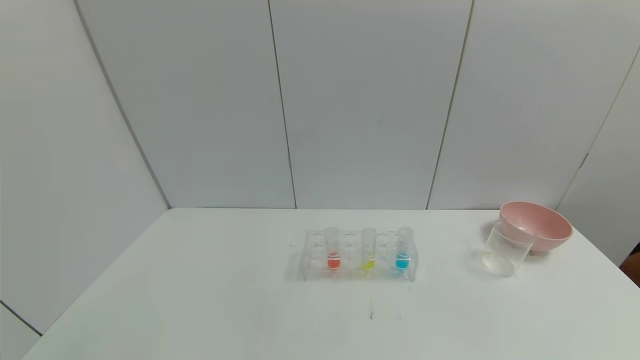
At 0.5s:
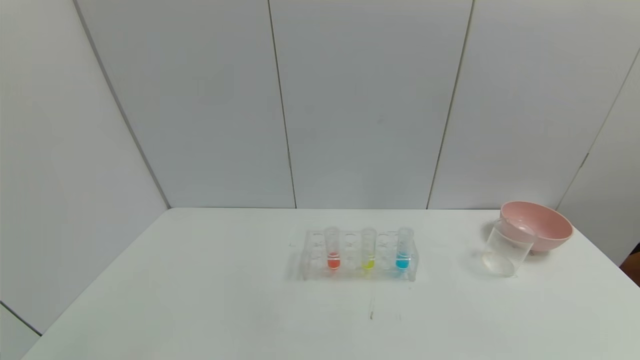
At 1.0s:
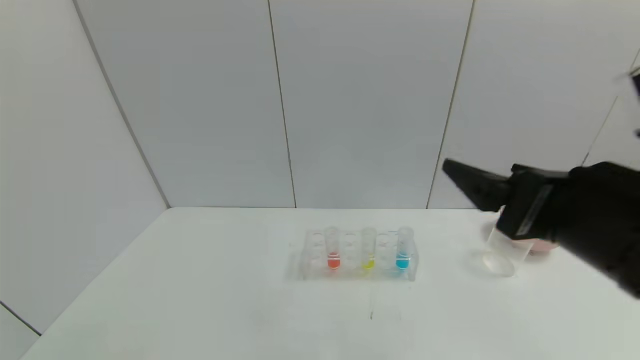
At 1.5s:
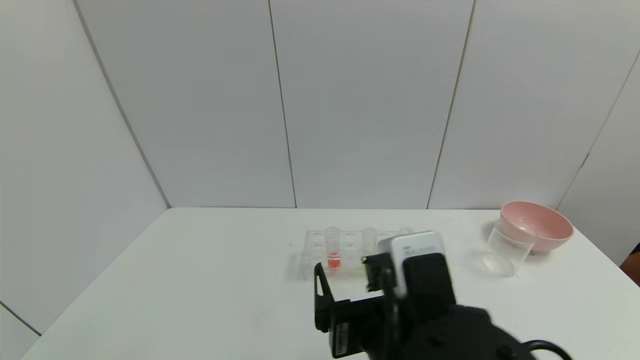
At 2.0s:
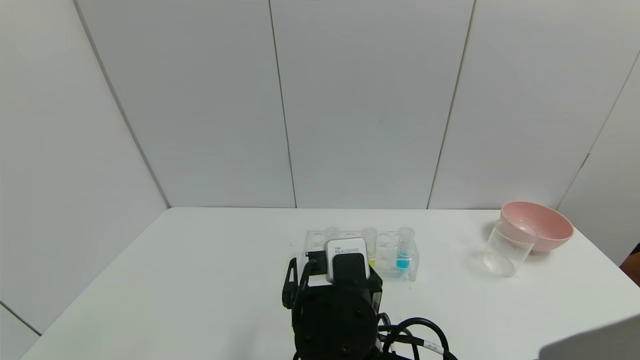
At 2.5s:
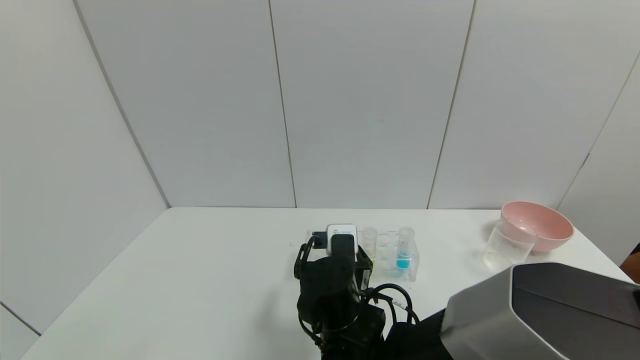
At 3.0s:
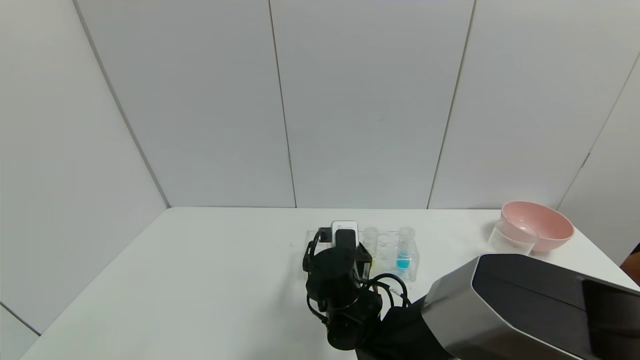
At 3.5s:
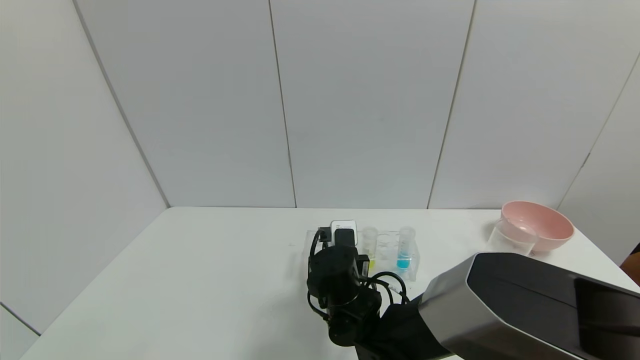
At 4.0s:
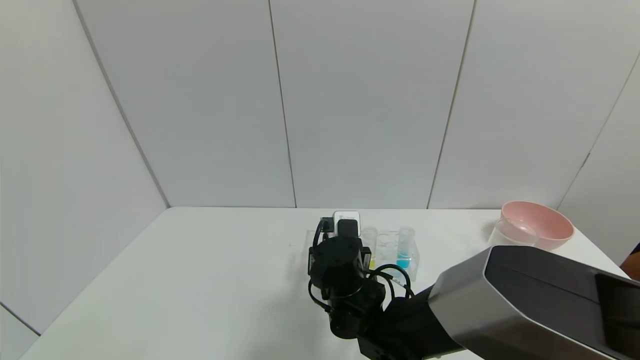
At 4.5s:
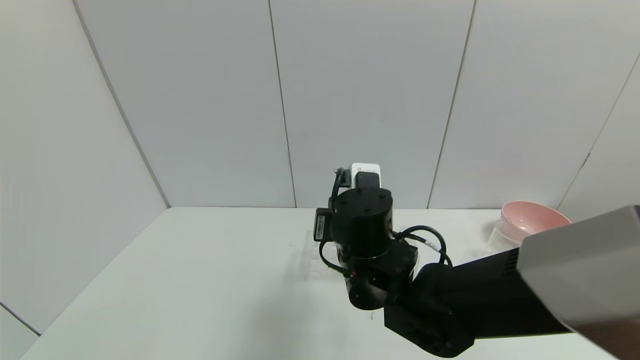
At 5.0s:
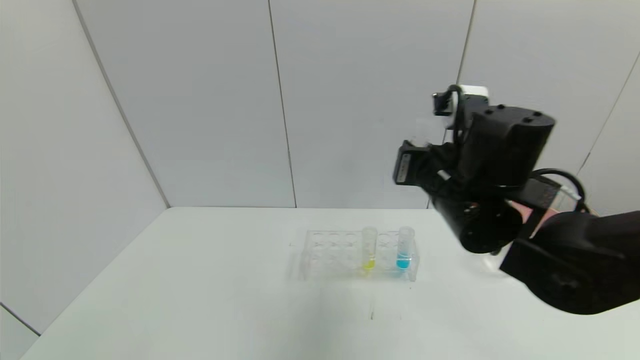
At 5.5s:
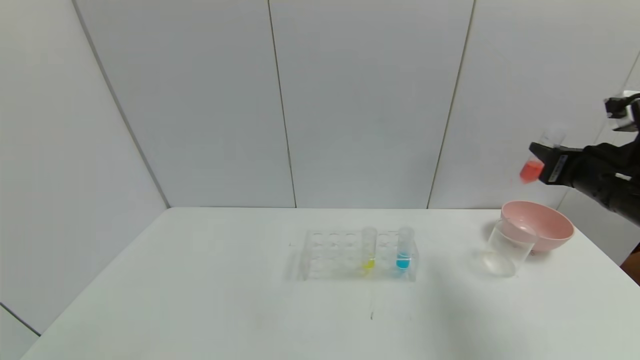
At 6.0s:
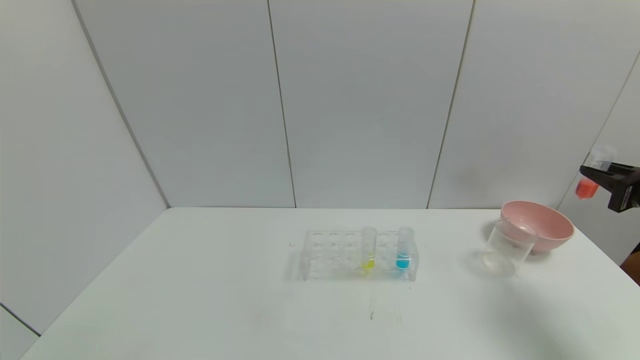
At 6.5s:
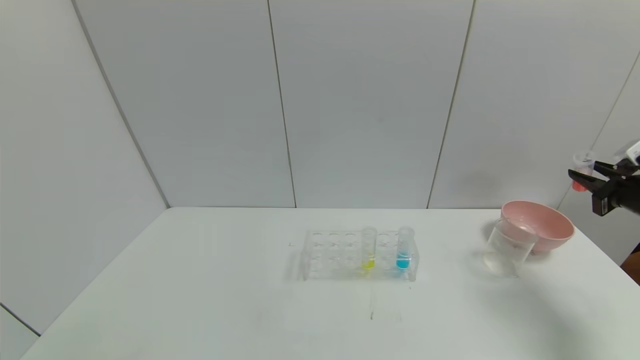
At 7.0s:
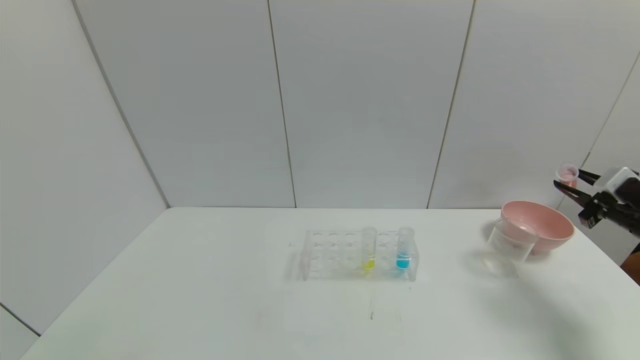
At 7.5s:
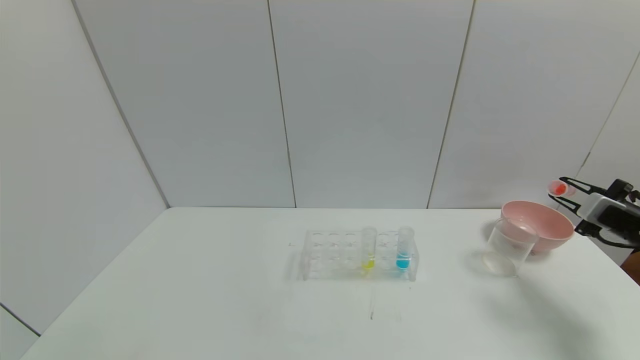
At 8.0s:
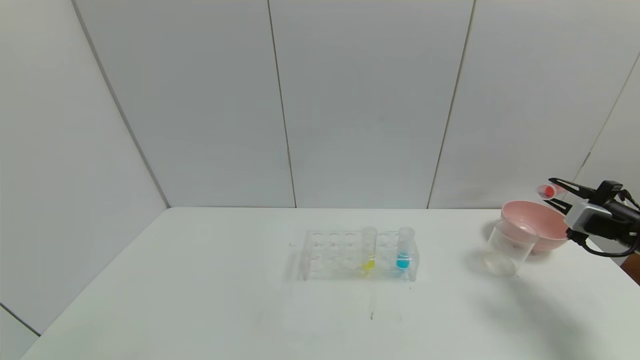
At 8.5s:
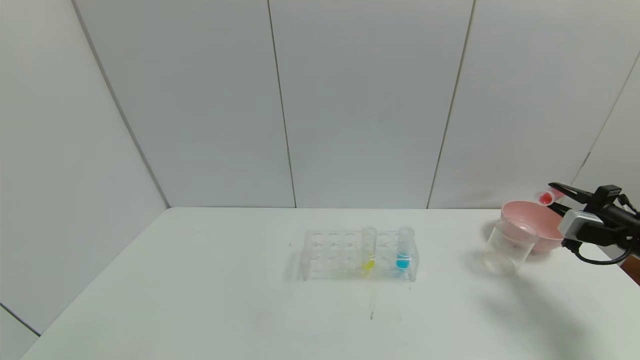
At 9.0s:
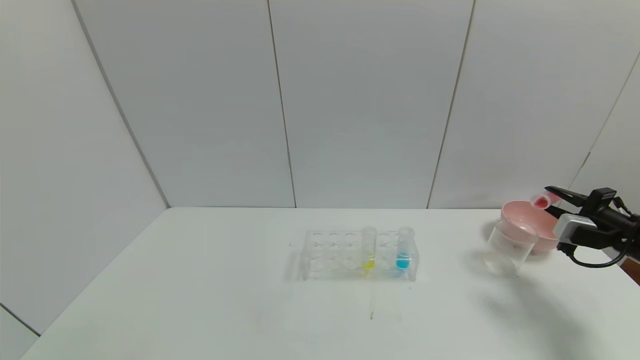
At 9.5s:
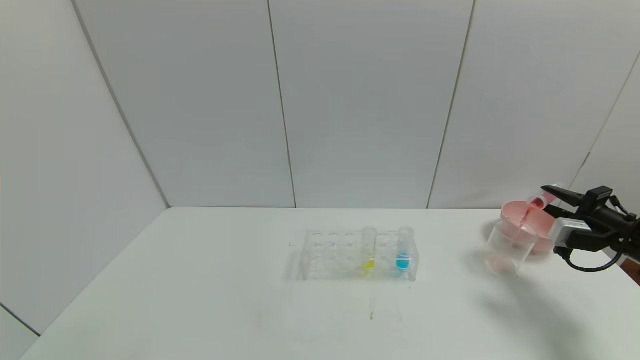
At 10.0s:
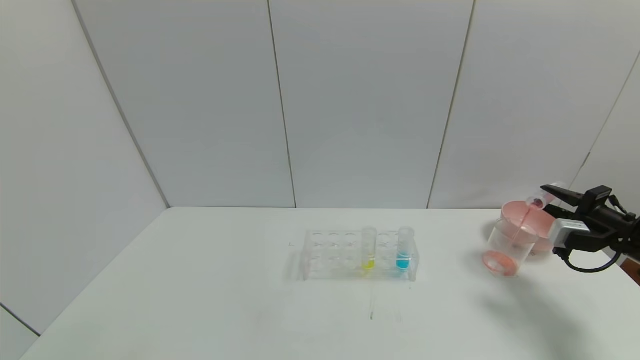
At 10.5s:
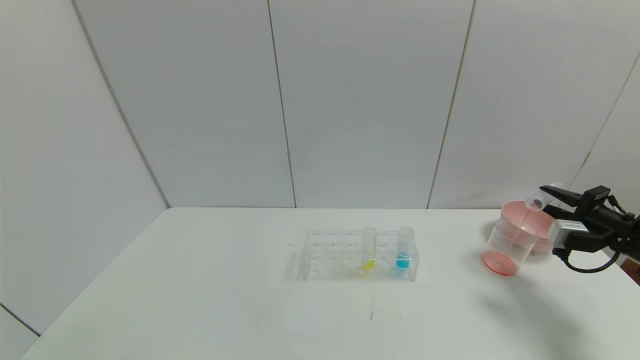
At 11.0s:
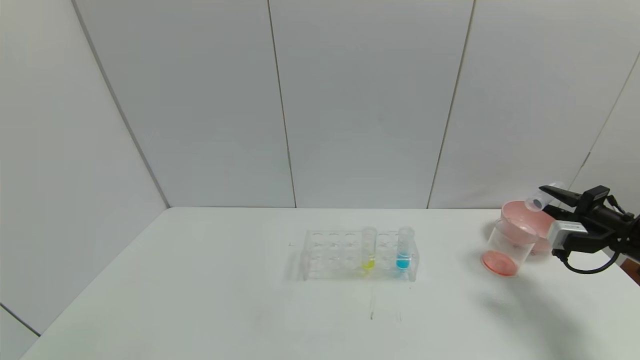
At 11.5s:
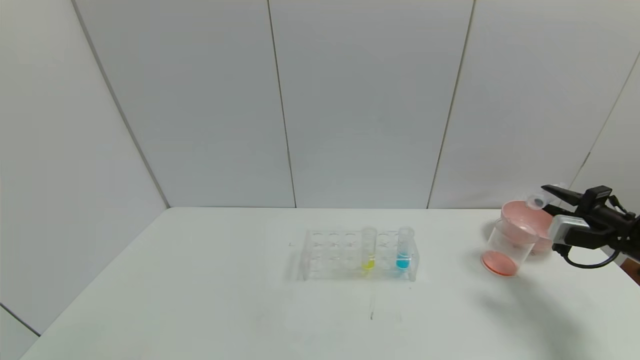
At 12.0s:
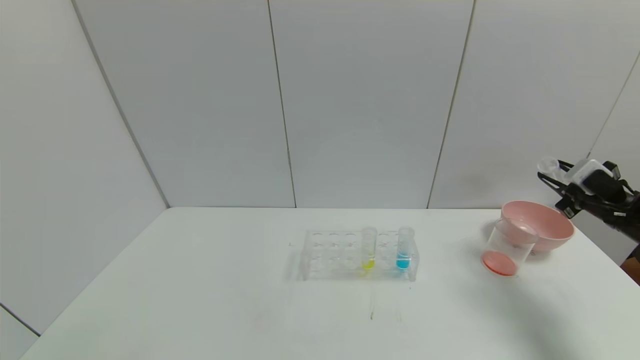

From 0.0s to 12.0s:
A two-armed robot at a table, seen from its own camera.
Task of the whole recording: pick up the test tube with yellow pigment and the test tube with red pigment by grippers and pour them into the beaker.
Step, from 0.0s to 5.0s: Pick up the test tube containing the red reagent with right gripper.
From 0.0s to 2.0s: The right gripper moves to the left and forward, approximately 40 cm.
From 2.0s to 4.0s: The right gripper shifts roughly 10 cm forward, and closes.
From 4.0s to 6.0s: The right gripper is displaced to the right by approximately 50 cm.
From 6.0s to 8.0s: The right gripper shifts approximately 5 cm downward.
From 8.0s to 10.0s: The grippers move only a little.

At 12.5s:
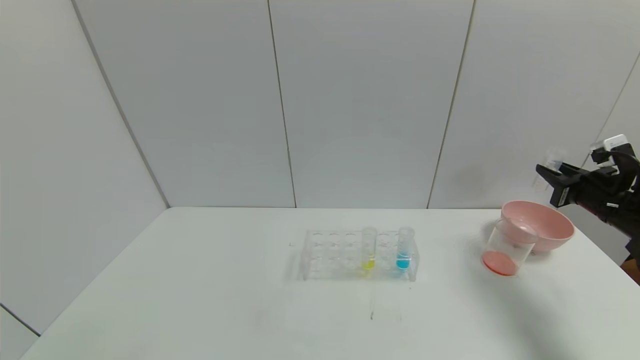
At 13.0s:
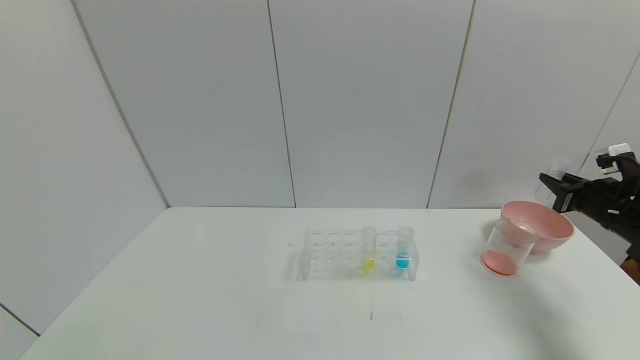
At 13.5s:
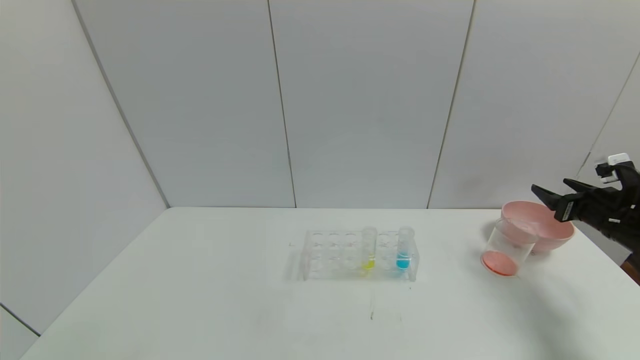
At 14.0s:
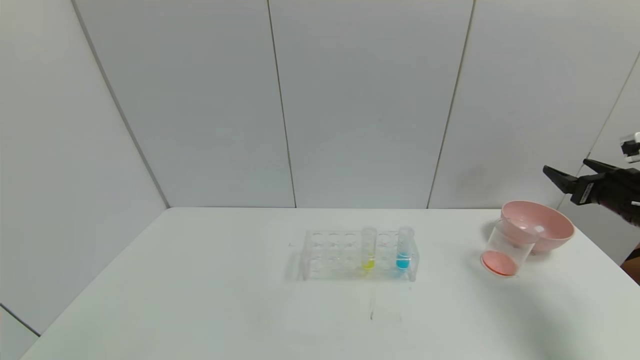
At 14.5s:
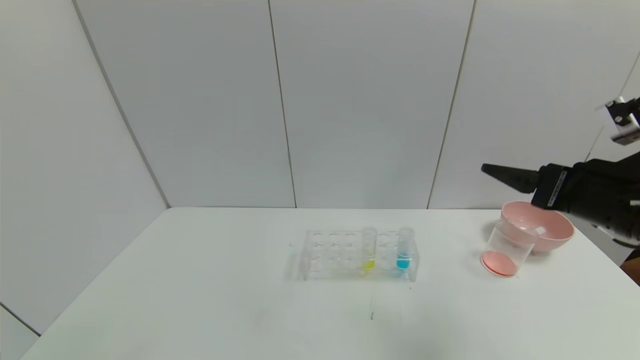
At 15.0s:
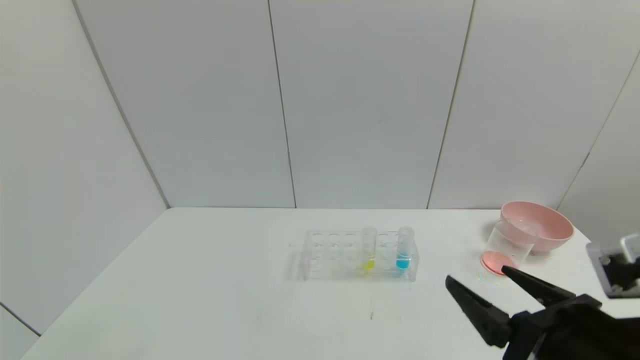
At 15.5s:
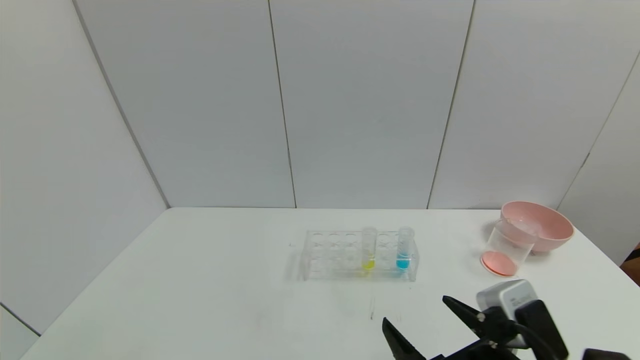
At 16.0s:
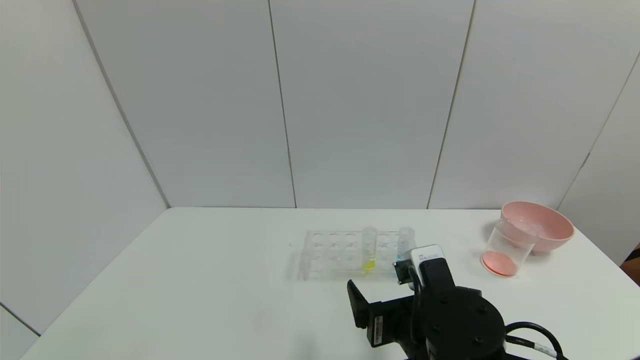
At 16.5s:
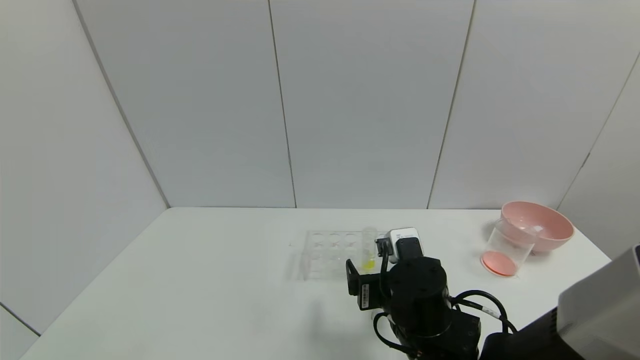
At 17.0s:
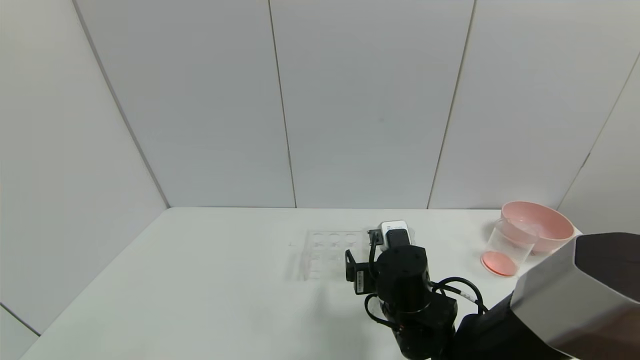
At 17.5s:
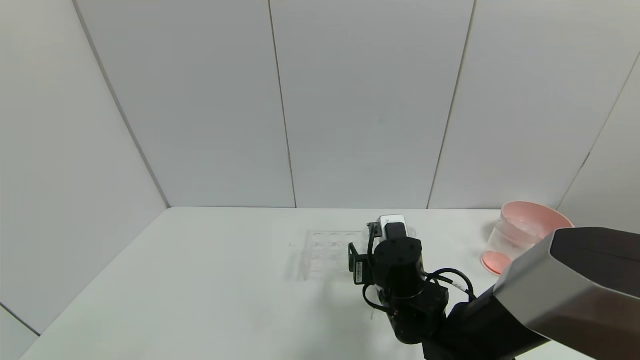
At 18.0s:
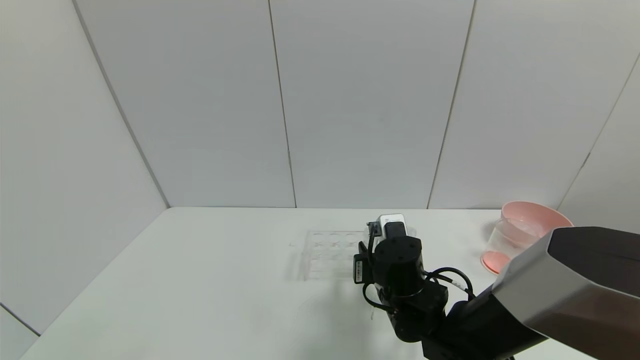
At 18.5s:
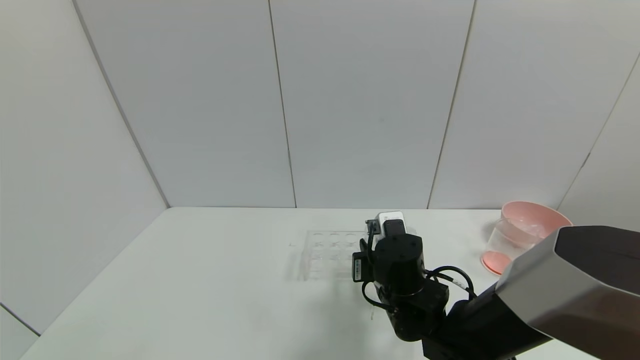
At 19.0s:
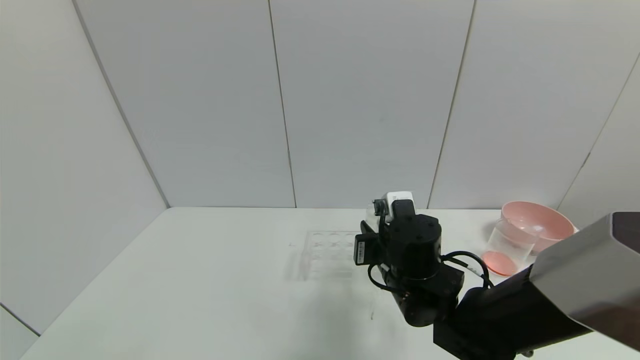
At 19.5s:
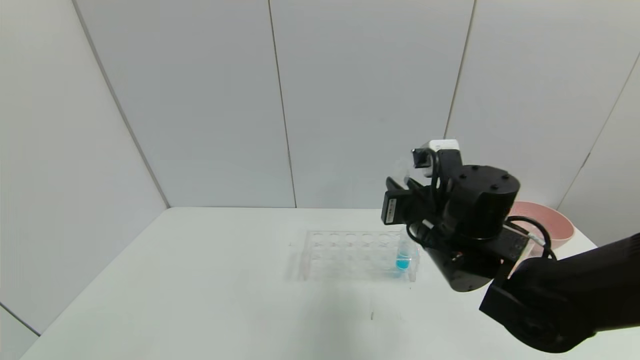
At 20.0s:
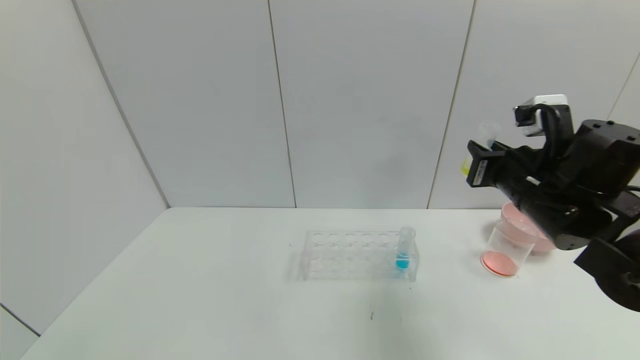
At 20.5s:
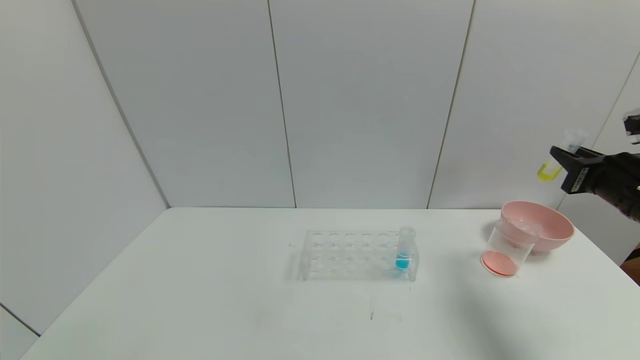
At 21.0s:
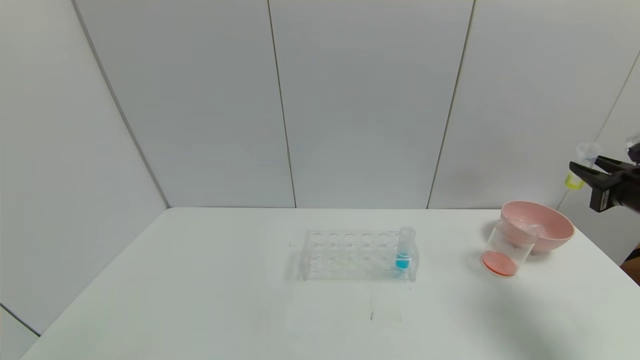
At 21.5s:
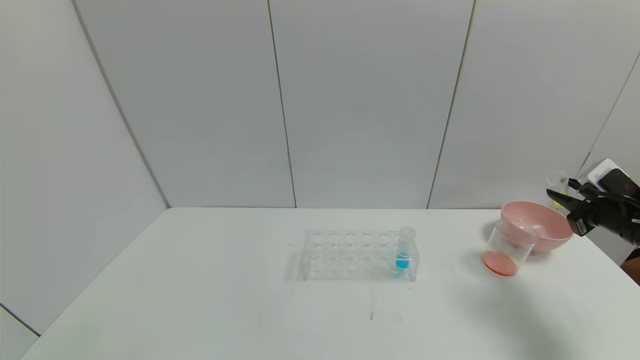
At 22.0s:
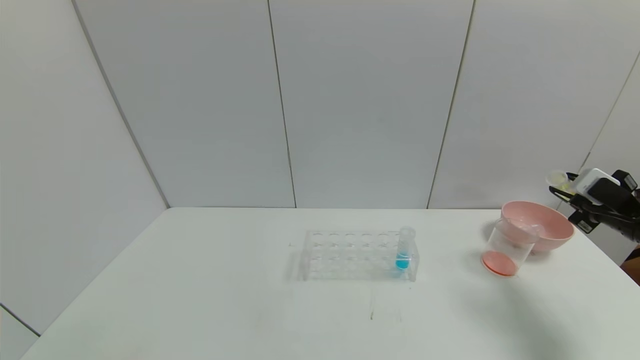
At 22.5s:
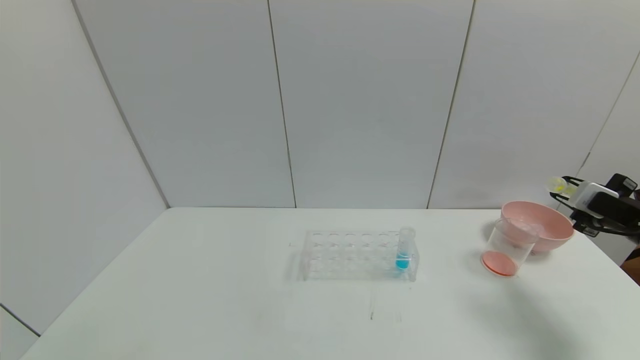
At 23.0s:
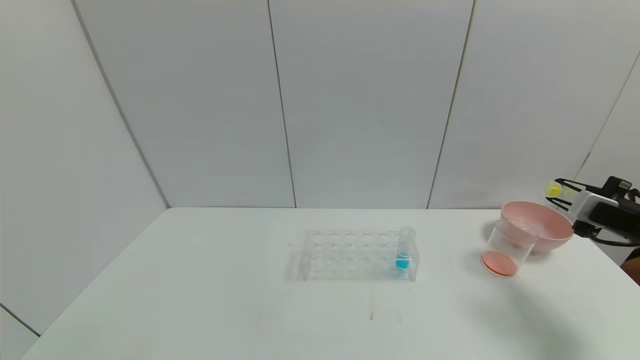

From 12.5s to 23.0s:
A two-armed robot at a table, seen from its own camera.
Task of the whole recording: pick up the test tube with yellow pigment and the test tube with red pigment by grippers and pour them into the beaker.
Step, from 13.0s to 14.5s: Place the test tube into the bowl with right gripper.
Step, from 15.0s to 19.5s: Pick up the test tube containing the yellow reagent with right gripper.
From 12.5s to 14.5s: The right gripper moves to the left, backward and upward, some 20 cm, and opens.
From 14.5s to 16.5s: The right gripper goes roughly 25 cm to the left and downward.
From 16.5s to 19.0s: The right gripper travels forward by about 5 cm, and closes its fingers.
From 19.0s to 21.0s: The right gripper shifts roughly 35 cm to the right.
